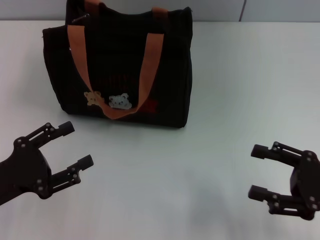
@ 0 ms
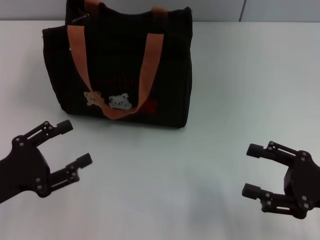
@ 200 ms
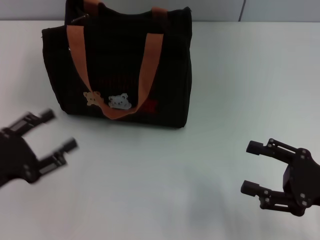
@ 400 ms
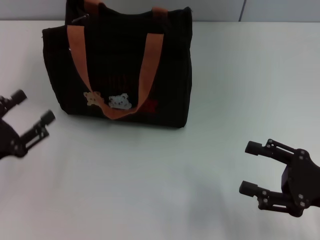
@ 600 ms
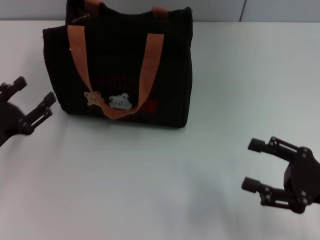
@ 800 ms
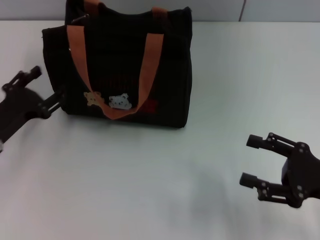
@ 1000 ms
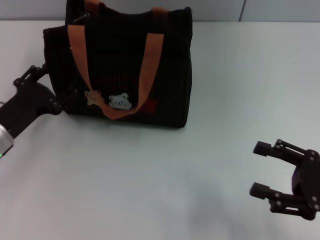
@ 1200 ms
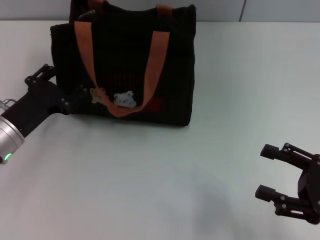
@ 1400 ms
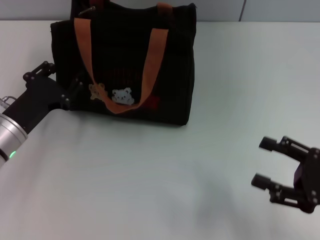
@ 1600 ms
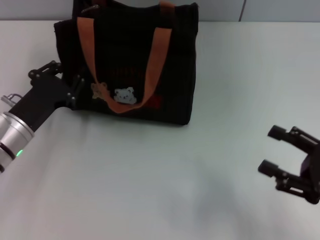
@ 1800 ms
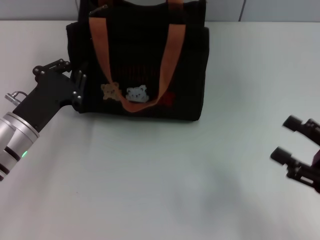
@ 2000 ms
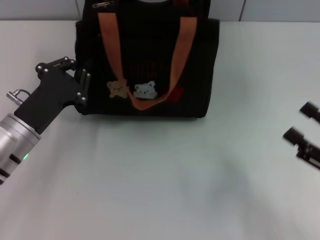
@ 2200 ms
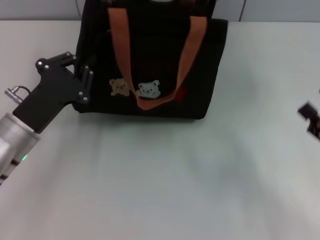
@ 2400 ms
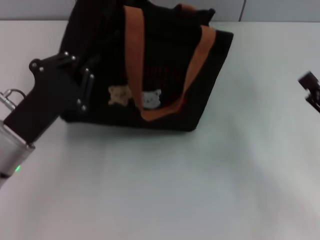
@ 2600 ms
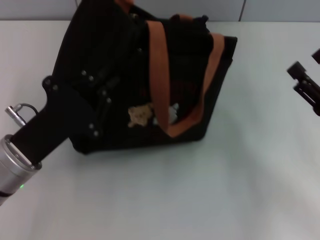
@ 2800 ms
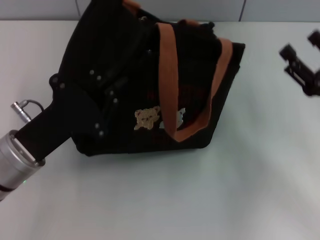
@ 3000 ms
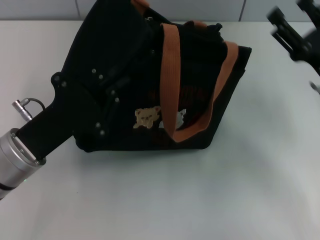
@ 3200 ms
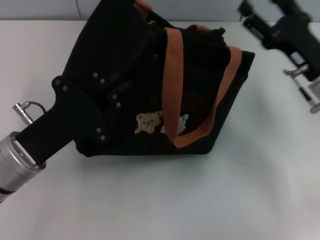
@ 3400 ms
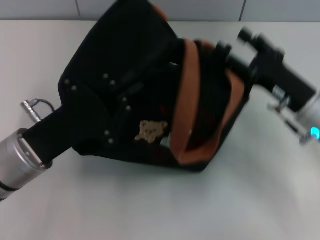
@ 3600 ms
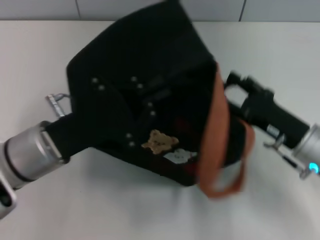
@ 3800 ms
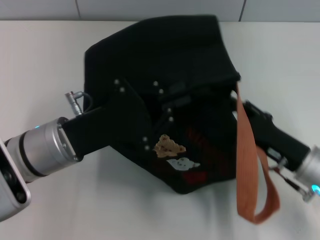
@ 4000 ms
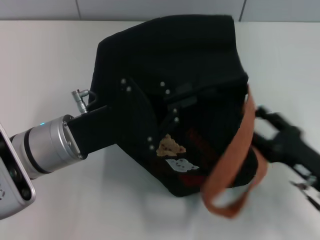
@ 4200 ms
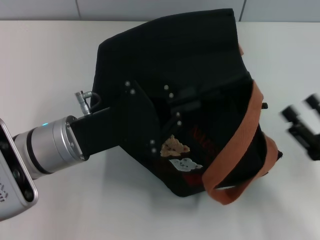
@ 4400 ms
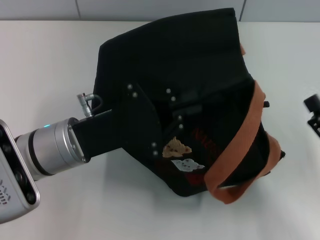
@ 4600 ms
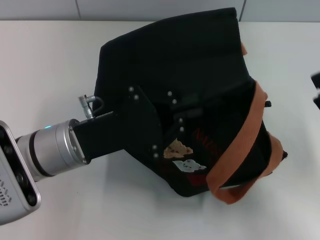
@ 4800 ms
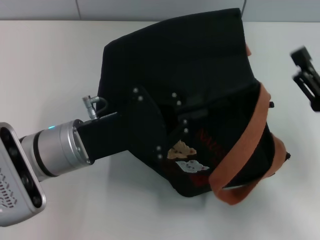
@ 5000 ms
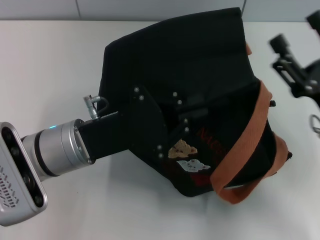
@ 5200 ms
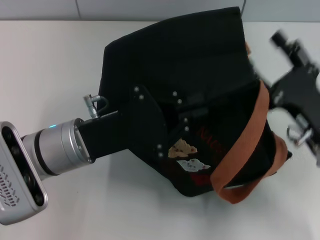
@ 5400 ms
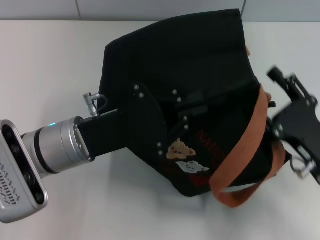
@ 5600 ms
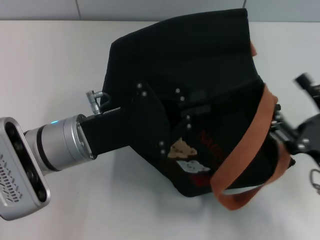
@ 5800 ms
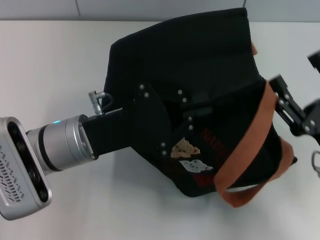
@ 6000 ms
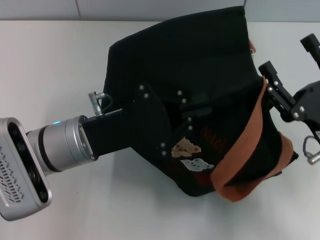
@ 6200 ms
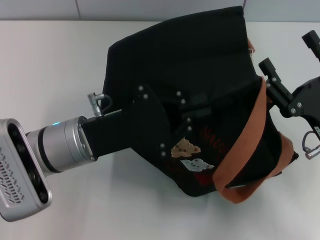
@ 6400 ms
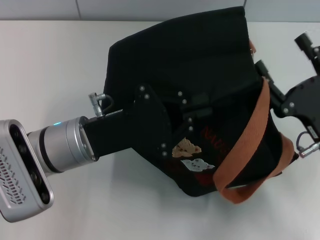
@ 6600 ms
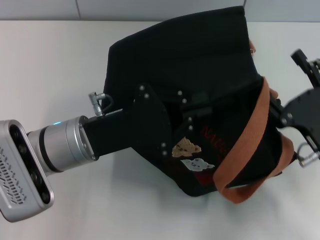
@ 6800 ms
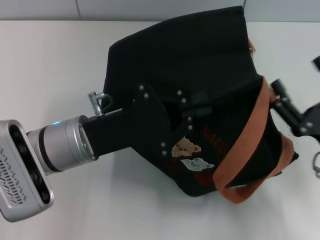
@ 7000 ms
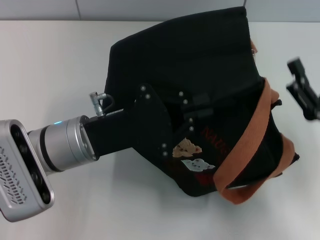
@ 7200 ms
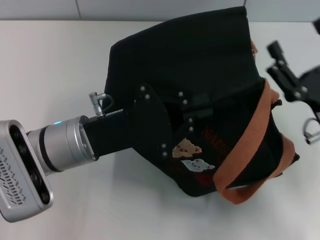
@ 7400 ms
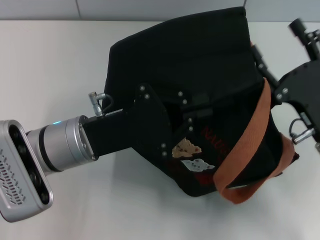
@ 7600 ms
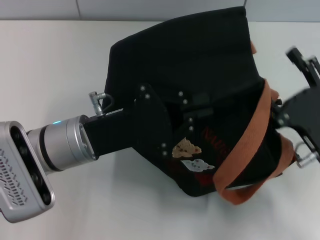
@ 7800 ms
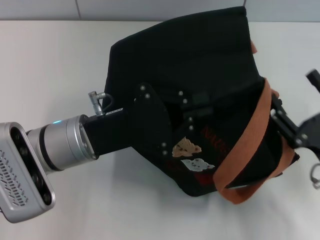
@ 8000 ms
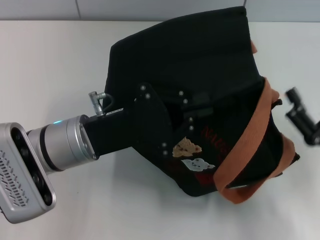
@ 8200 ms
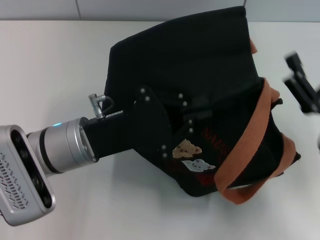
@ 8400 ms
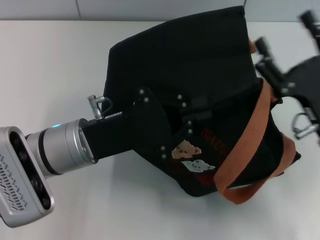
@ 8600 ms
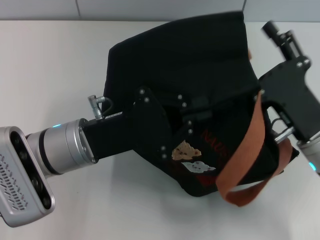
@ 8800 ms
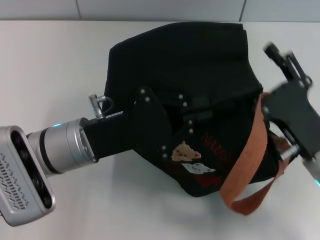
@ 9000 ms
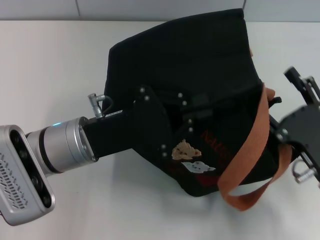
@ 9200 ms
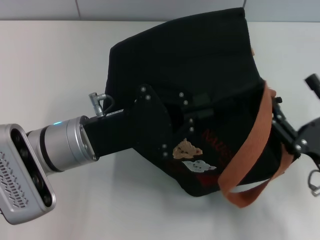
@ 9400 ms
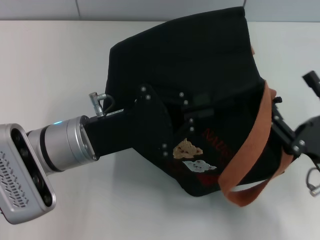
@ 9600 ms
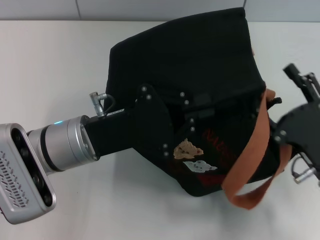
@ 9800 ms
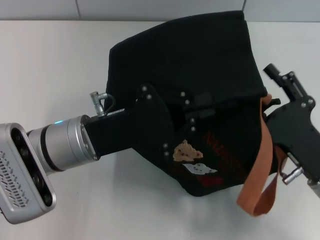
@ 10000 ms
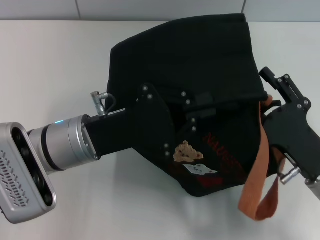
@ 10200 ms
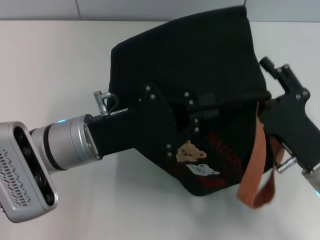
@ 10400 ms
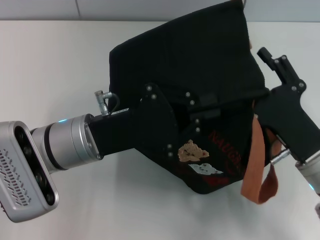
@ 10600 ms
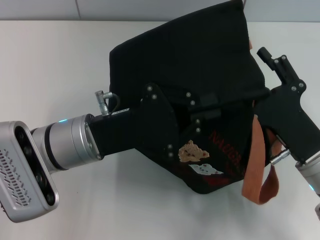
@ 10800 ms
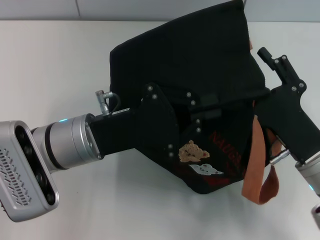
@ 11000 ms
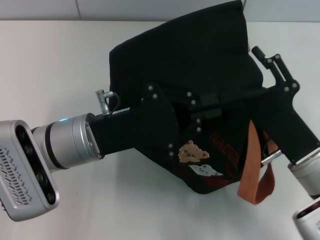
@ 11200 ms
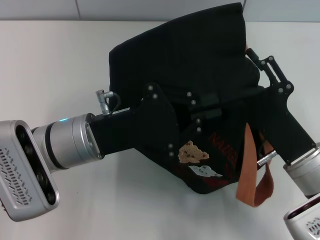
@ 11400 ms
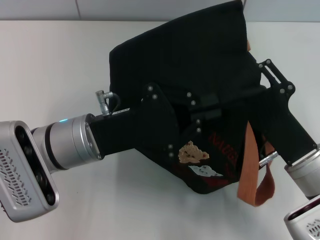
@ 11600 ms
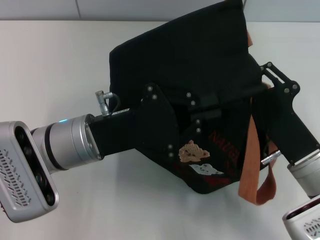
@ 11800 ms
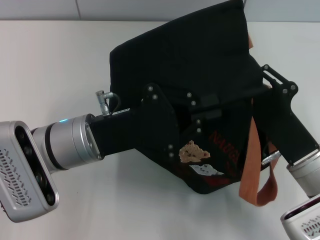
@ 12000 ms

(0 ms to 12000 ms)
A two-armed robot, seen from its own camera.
0 ms - 1600 ms: The left gripper goes roughly 10 cm forward.
1600 ms - 3000 ms: The right gripper travels forward by about 5 cm; the left gripper ends up approximately 10 cm from where it was, and closes its fingers.
3000 ms - 4400 ms: The left gripper goes some 5 cm to the right. Meanwhile the right gripper shifts about 10 cm backward.
4400 ms - 6000 ms: The right gripper moves some 5 cm forward and comes back.
6000 ms - 7600 ms: There are only small adjustments of the grippers.
9000 ms - 10400 ms: The grippers stay close to where they were, moving slightly.
10400 ms - 12000 ms: The right gripper closes up.

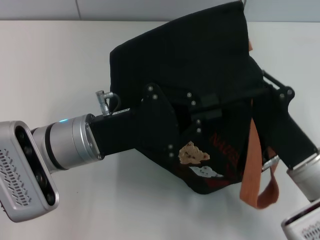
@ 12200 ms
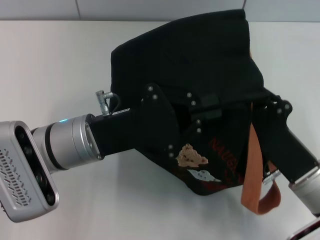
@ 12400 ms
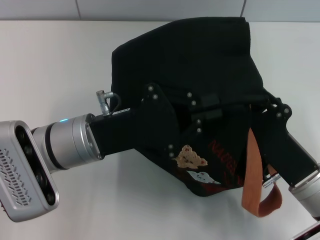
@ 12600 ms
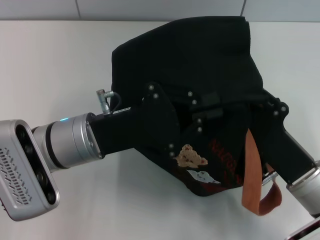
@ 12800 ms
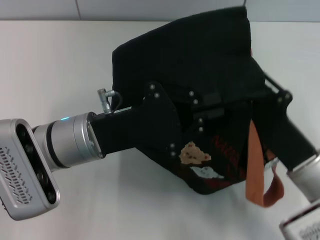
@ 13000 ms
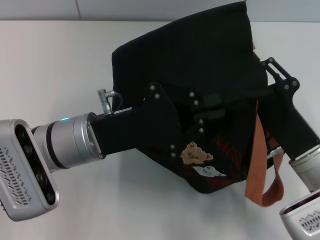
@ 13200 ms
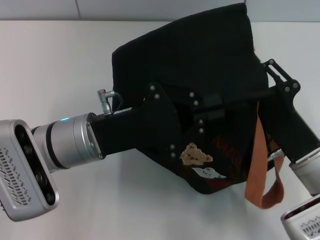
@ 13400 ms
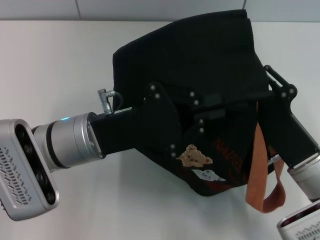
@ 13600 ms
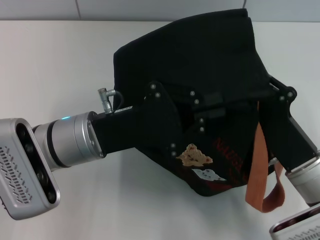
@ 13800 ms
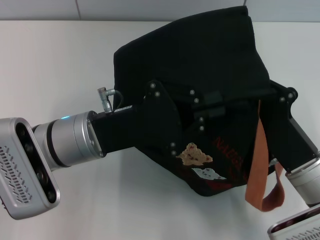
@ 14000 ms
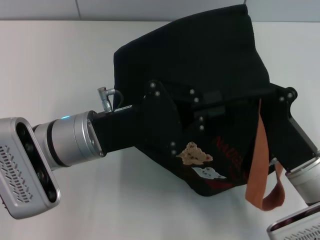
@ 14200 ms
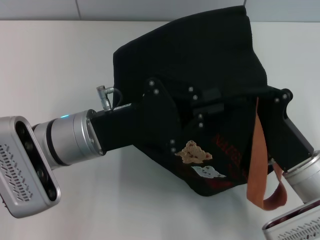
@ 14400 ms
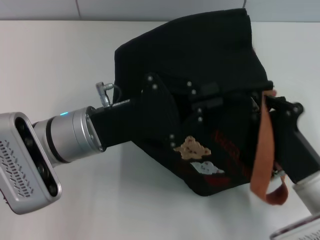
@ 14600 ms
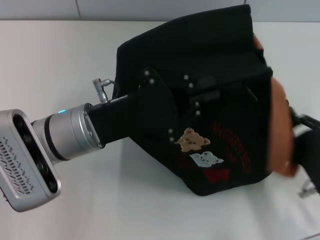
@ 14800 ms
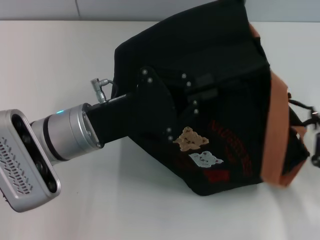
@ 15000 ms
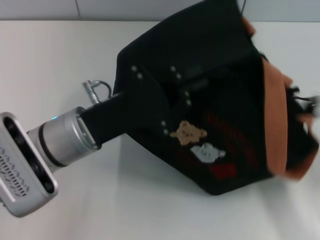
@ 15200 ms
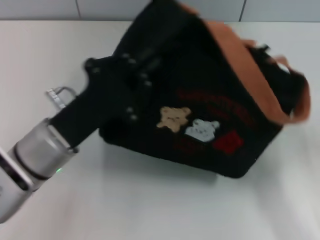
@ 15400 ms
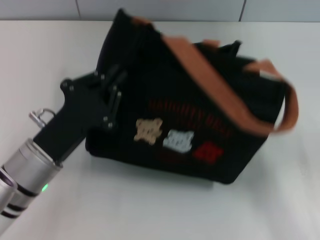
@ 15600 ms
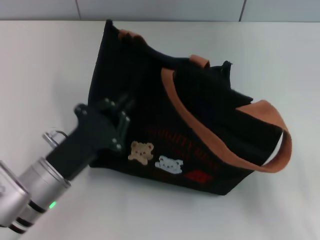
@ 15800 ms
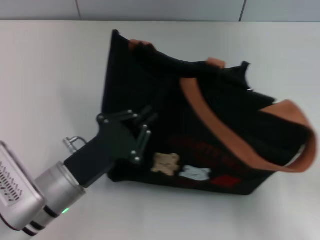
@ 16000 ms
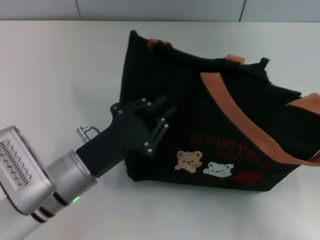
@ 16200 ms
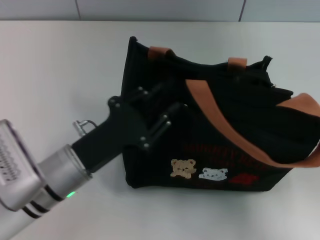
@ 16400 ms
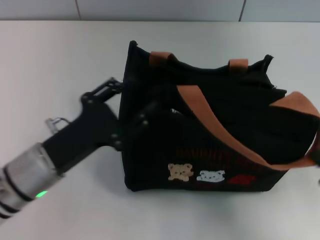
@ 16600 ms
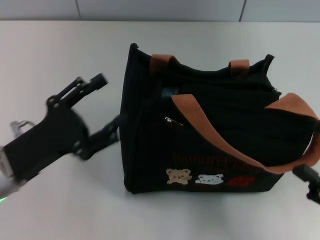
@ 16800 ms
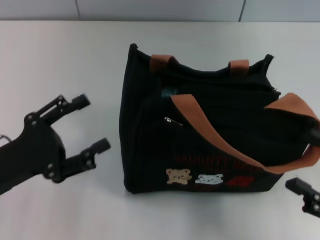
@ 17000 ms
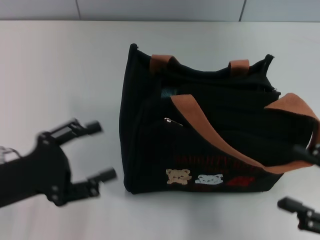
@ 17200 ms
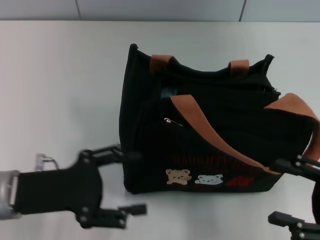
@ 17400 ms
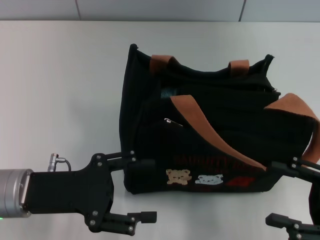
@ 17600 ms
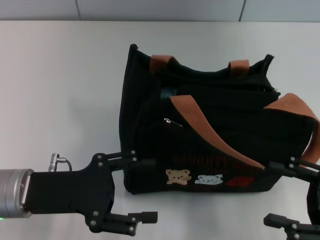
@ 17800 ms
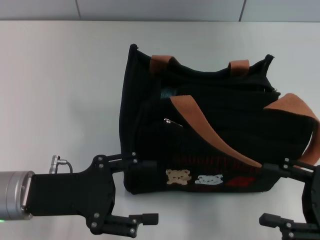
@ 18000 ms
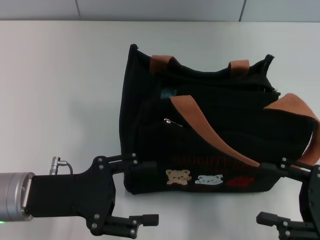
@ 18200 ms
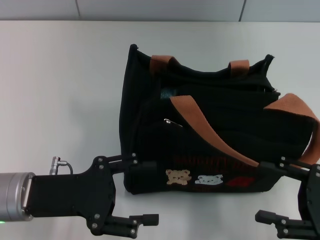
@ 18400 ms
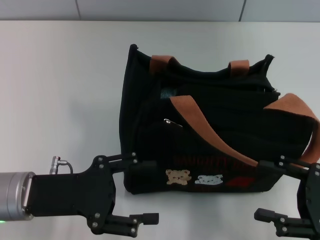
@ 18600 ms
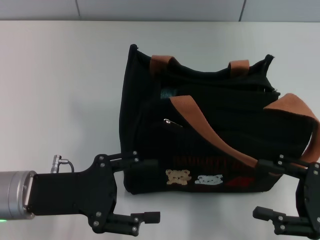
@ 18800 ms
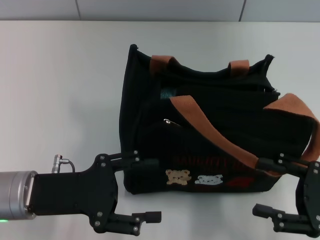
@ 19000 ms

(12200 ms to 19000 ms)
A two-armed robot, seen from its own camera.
Step, 12200 ms - 15400 ms: Pull open the zipper with your right hand.
Step, 15600 ms - 16400 ms: Grab the bag with your left hand.
12200 ms - 13600 ms: The grippers stay close to where they were, moving slightly.
13600 ms - 15000 ms: The right gripper shifts about 10 cm to the right and backward, and closes.
15000 ms - 16200 ms: The right gripper is displaced upward by some 5 cm, and opens its fingers. Meanwhile the left gripper heads downward, covering about 5 cm.
16200 ms - 17600 ms: The left gripper heads to the left, covering approximately 5 cm, and opens up.
17600 ms - 19000 ms: There are only small adjustments of the grippers.

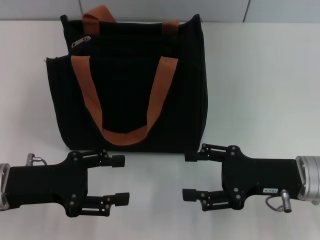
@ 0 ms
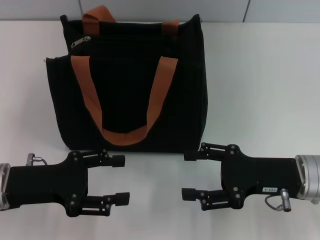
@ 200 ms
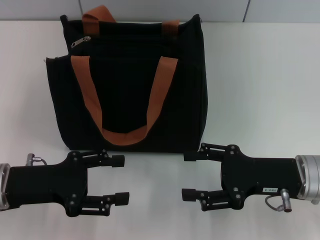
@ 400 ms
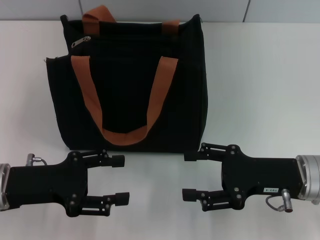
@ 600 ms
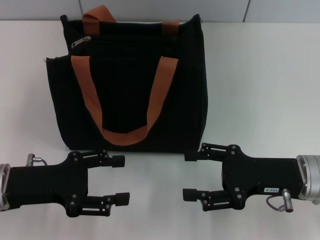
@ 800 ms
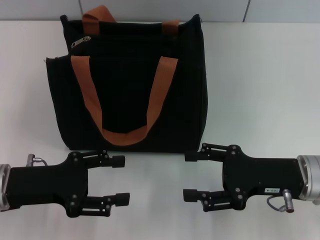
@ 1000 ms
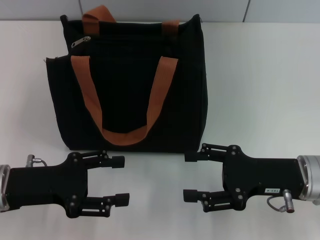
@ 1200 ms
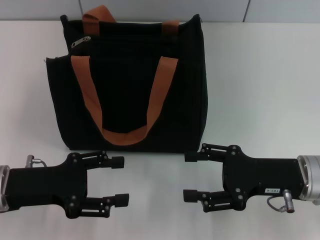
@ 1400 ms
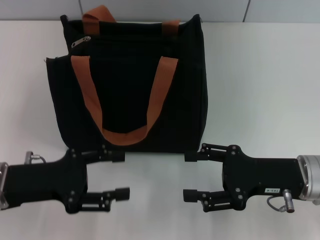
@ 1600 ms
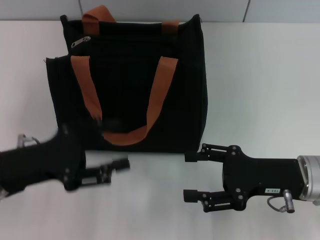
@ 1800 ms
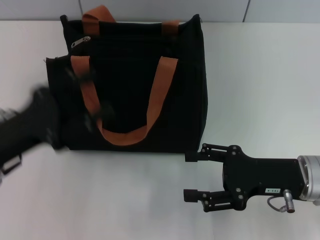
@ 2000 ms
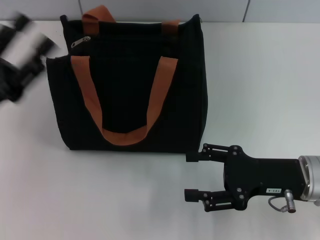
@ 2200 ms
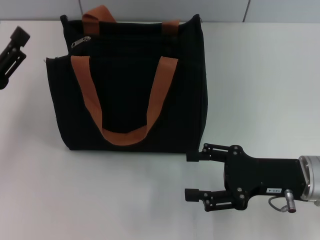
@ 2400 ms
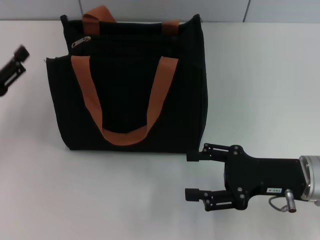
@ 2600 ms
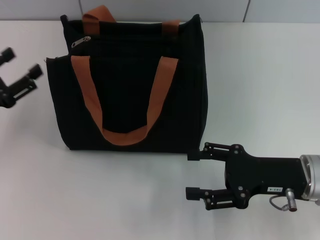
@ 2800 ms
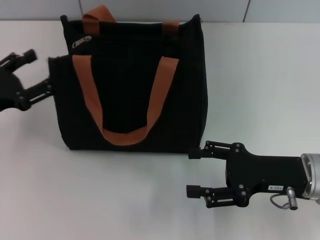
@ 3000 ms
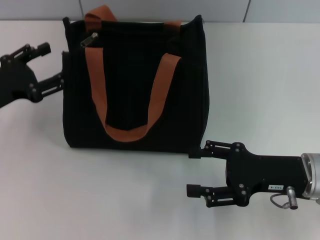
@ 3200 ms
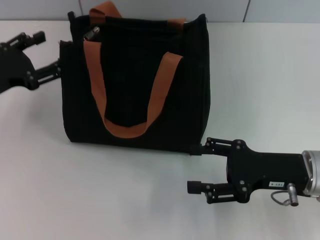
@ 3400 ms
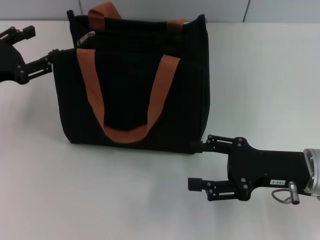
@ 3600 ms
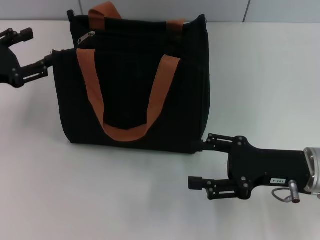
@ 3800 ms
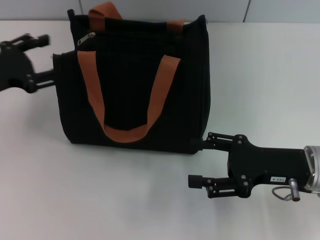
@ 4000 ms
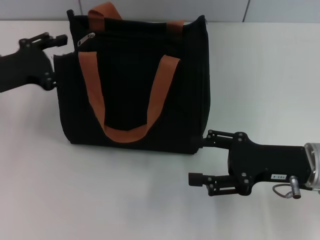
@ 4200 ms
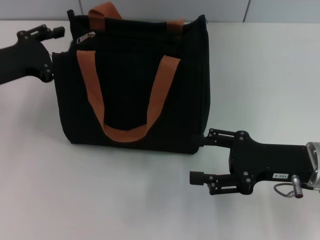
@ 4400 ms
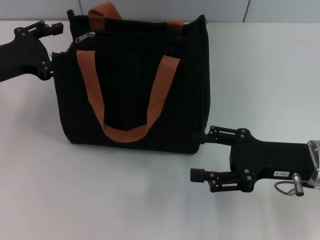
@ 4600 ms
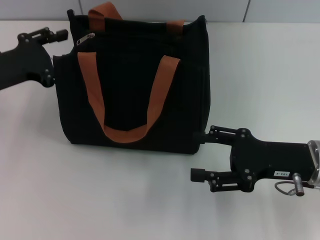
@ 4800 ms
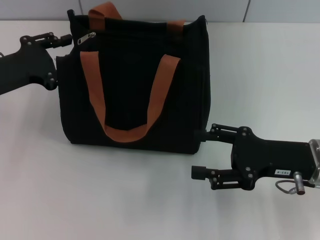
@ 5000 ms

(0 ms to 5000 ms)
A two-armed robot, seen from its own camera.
0 ms - 1600 ms: Both grippers stay put.
1600 ms - 3400 ms: The left gripper moves forward and to the left, approximately 10 cm.
3400 ms - 5000 ms: The grippers make only small movements.
